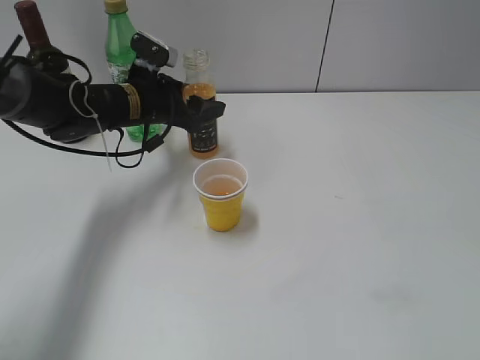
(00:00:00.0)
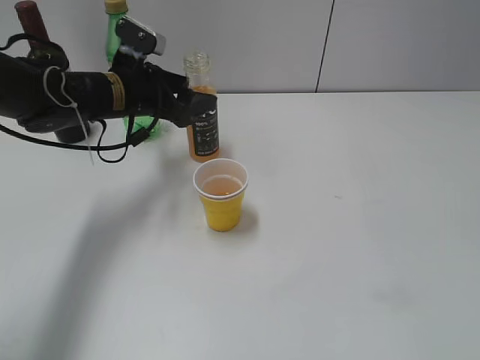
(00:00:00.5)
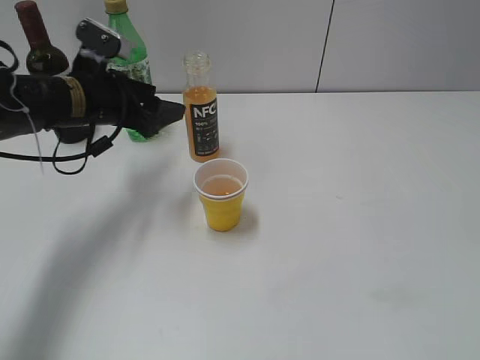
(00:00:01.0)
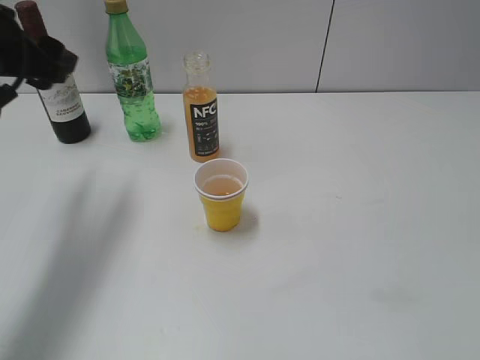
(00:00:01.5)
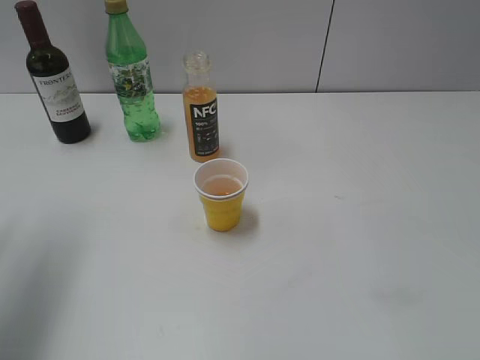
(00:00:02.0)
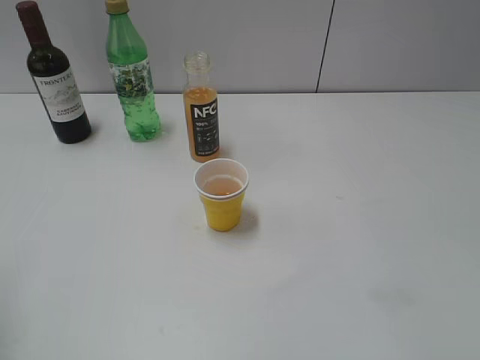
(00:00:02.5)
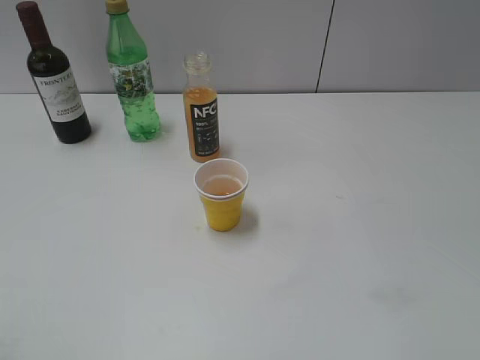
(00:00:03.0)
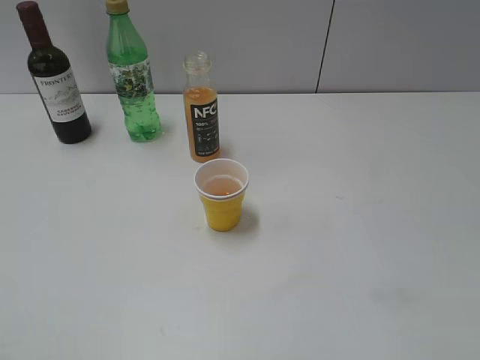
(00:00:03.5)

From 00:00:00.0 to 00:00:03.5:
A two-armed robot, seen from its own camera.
From 00:00:00.0 to 00:00:02.0: The left gripper moves backward, upward and to the left, approximately 30 cm.
From 00:00:02.0 to 00:00:03.5: The left gripper goes roughly 25 cm backward.
